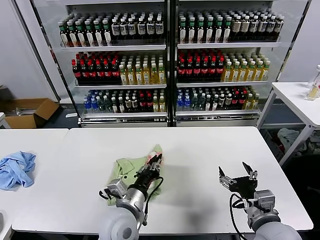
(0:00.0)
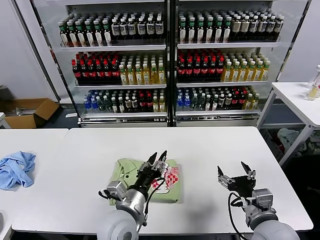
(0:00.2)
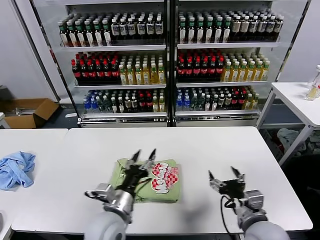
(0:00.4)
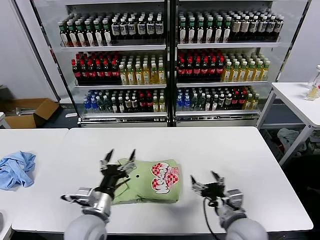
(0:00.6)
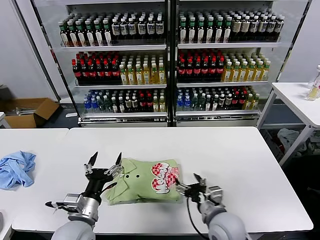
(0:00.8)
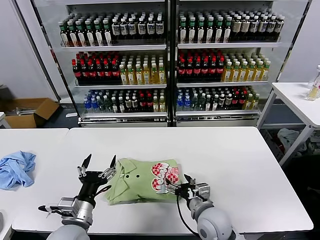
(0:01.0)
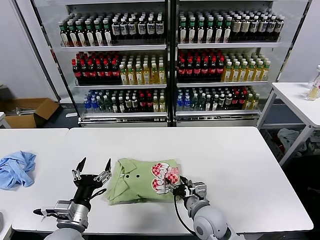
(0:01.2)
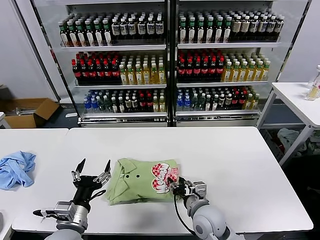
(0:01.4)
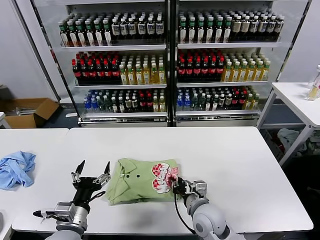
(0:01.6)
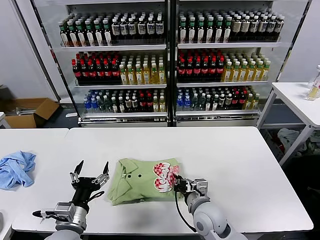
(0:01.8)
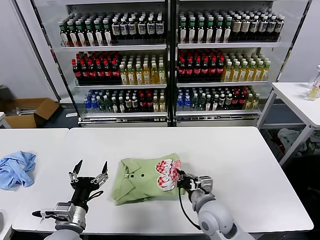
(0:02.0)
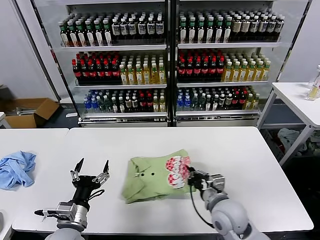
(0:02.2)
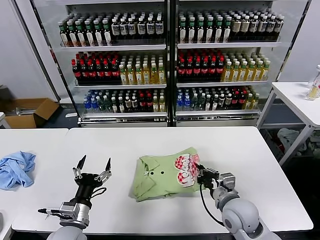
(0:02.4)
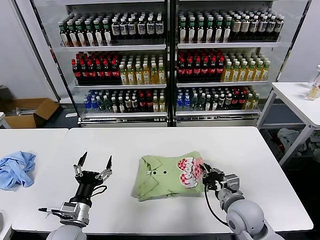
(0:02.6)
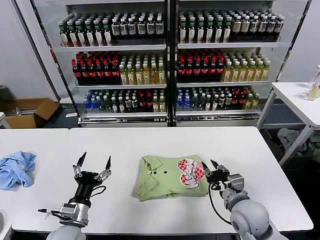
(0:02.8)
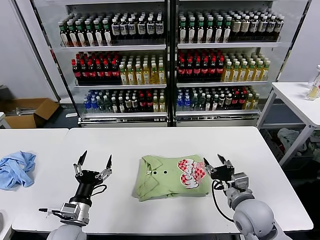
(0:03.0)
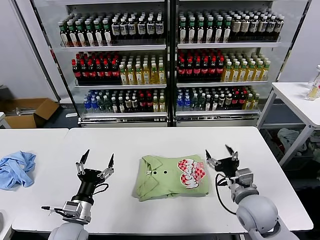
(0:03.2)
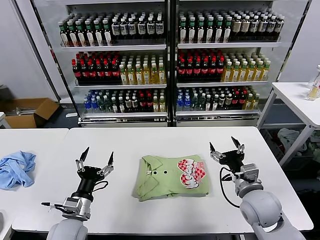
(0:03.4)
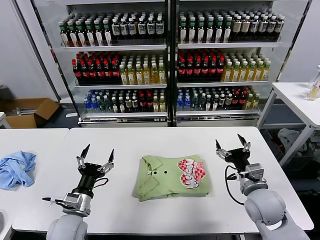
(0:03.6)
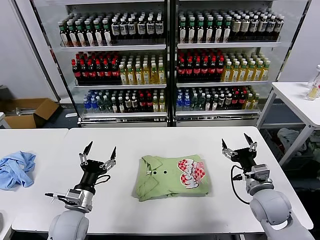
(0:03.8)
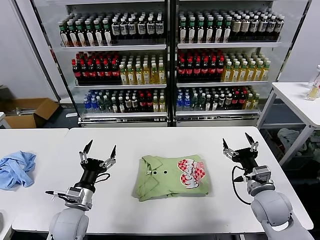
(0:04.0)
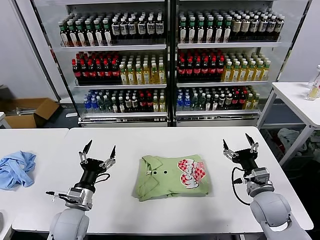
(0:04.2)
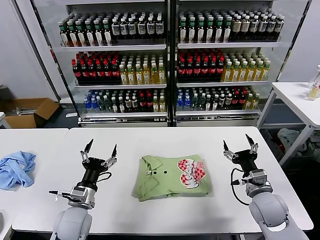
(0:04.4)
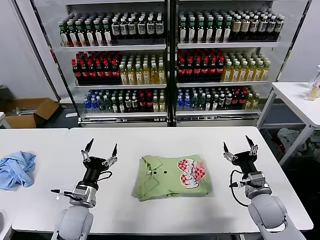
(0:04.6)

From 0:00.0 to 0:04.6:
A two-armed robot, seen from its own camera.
Task of the whole recording: fold and organize the clothes.
Step, from 0:00.4 to 0:02.8: Drag the clothes to the center of the table.
From 0:00.0 to 0:01.6: The right gripper heads to the left, downward and forward, covering approximately 20 cm, and closes its fingers. The left gripper goes roughly 15 cm to the left, and opens its fingers.
From 0:01.6 to 0:03.0: The right gripper is displaced to the right and upward by about 10 cm, and closes, then opens again.
From 0:03.0 to 0:04.6: The left gripper travels forward by roughly 5 cm, while the right gripper heads to the right, covering some 5 cm, and opens its fingers.
